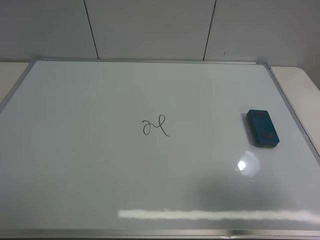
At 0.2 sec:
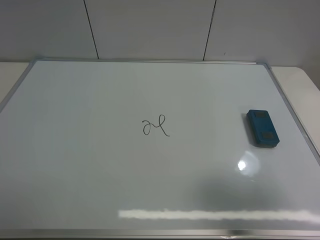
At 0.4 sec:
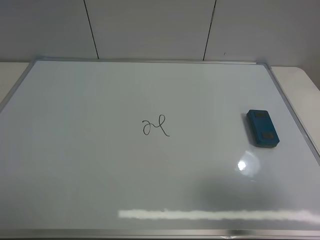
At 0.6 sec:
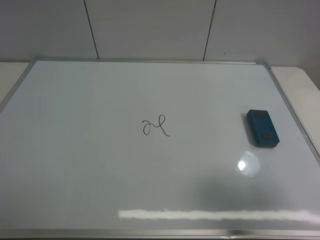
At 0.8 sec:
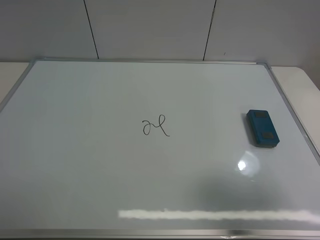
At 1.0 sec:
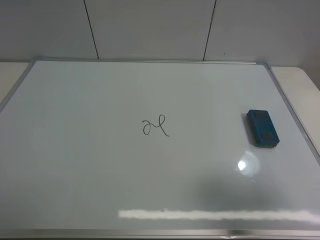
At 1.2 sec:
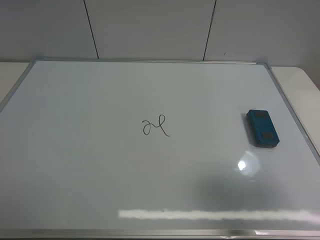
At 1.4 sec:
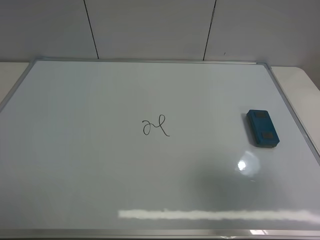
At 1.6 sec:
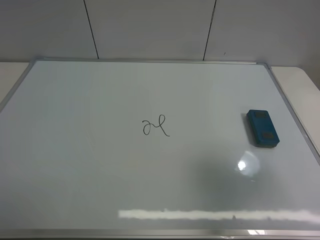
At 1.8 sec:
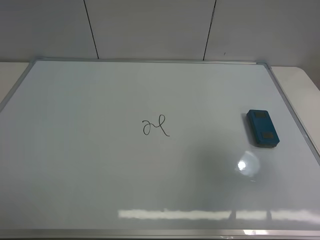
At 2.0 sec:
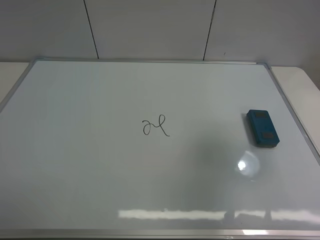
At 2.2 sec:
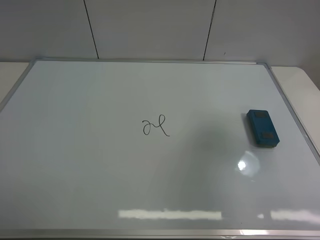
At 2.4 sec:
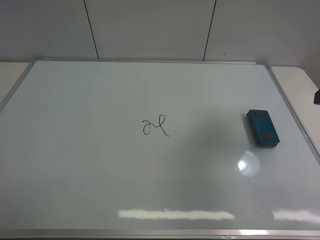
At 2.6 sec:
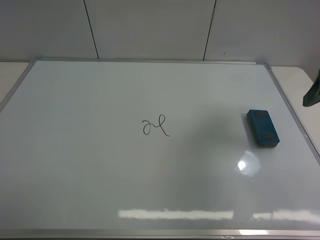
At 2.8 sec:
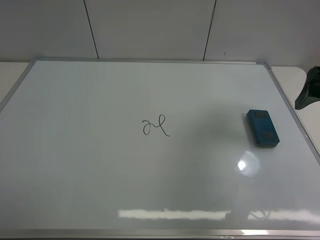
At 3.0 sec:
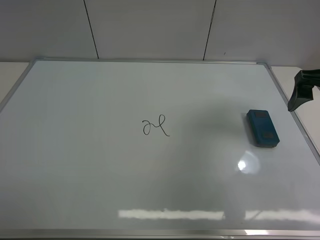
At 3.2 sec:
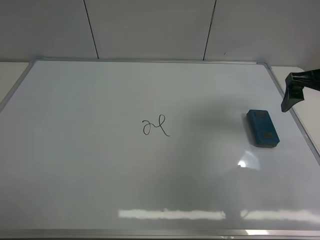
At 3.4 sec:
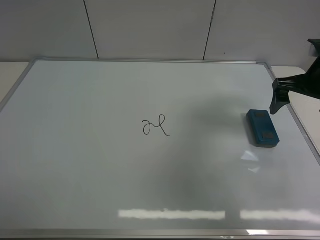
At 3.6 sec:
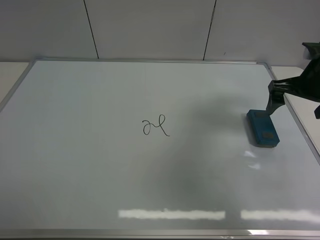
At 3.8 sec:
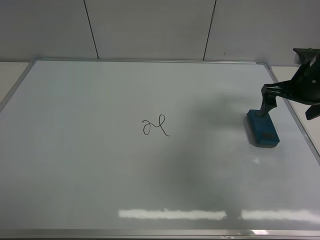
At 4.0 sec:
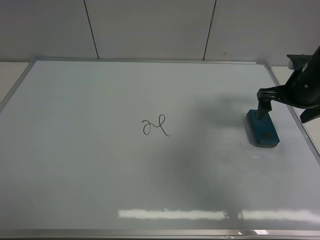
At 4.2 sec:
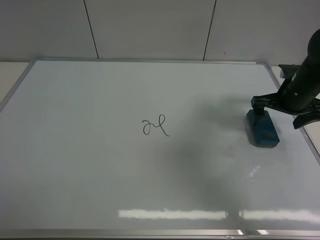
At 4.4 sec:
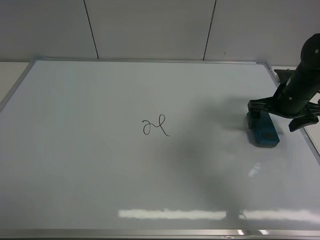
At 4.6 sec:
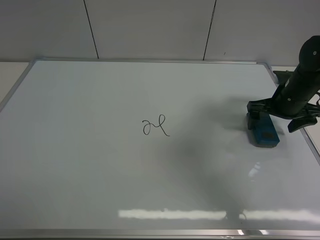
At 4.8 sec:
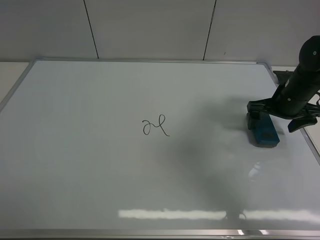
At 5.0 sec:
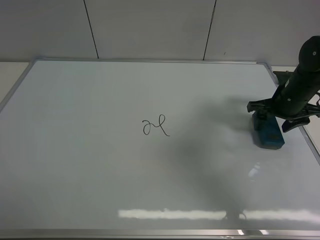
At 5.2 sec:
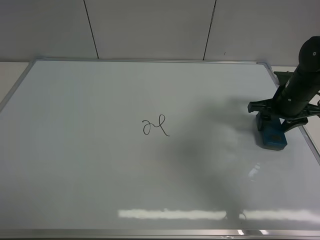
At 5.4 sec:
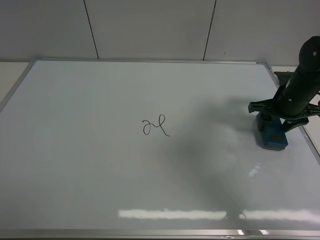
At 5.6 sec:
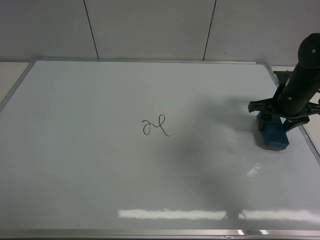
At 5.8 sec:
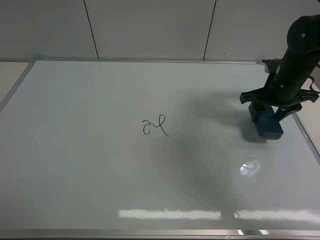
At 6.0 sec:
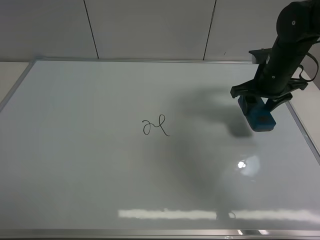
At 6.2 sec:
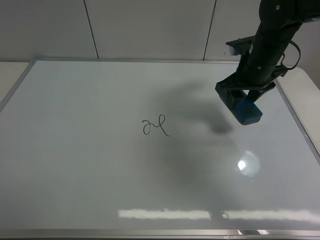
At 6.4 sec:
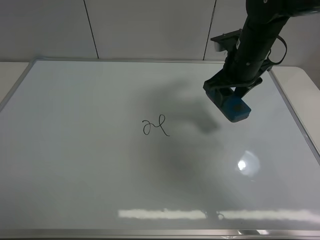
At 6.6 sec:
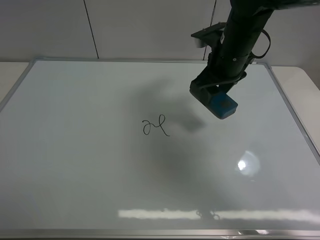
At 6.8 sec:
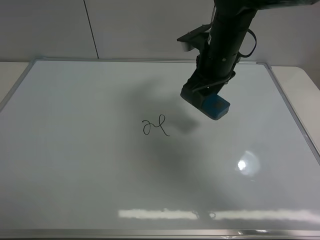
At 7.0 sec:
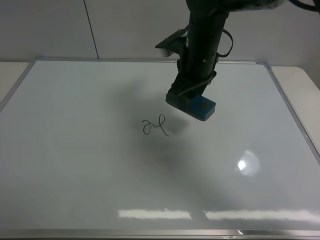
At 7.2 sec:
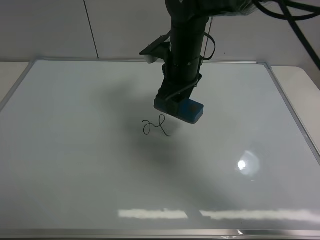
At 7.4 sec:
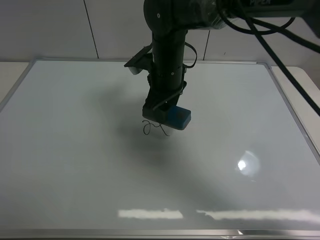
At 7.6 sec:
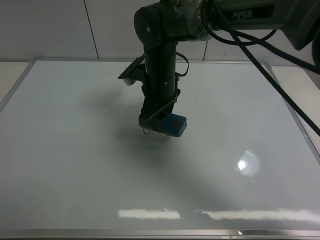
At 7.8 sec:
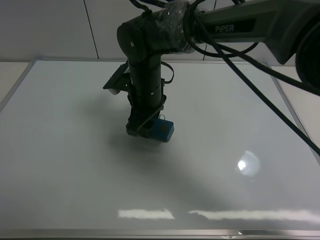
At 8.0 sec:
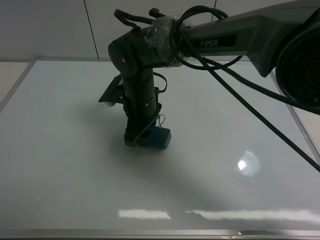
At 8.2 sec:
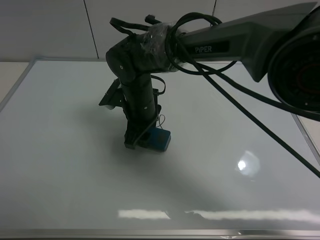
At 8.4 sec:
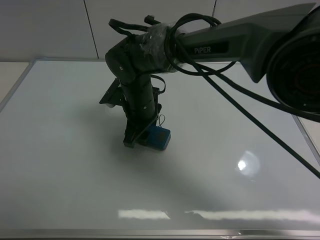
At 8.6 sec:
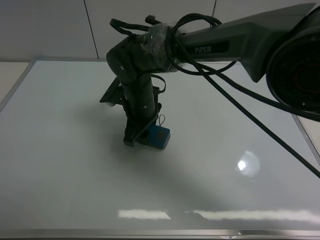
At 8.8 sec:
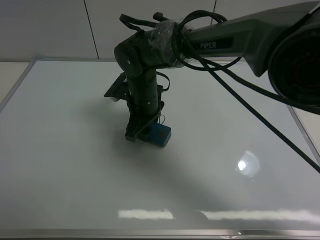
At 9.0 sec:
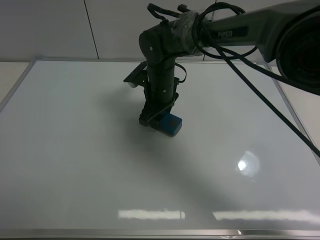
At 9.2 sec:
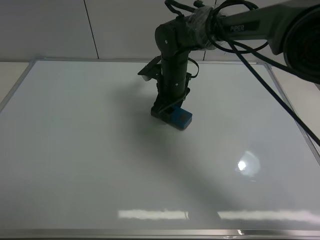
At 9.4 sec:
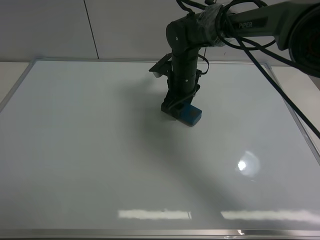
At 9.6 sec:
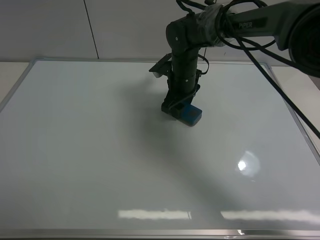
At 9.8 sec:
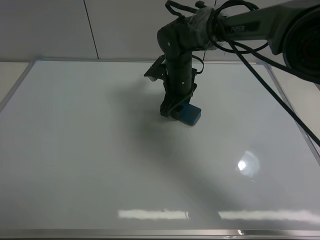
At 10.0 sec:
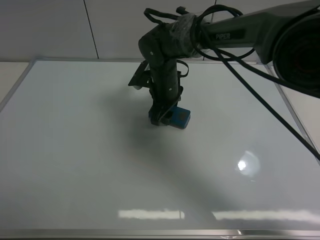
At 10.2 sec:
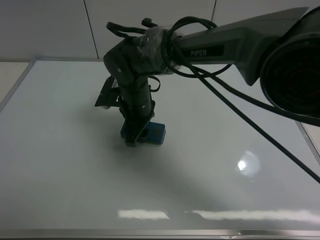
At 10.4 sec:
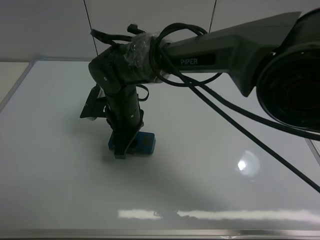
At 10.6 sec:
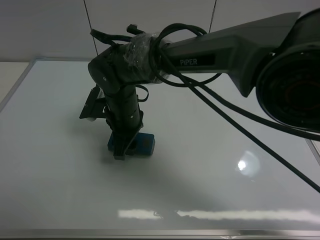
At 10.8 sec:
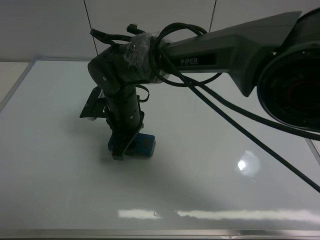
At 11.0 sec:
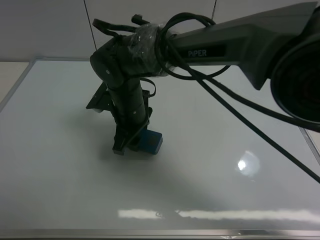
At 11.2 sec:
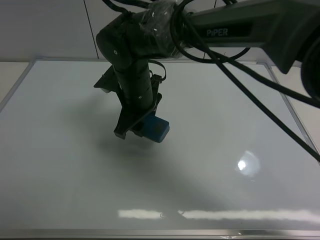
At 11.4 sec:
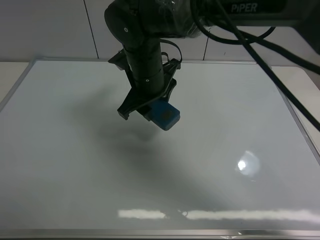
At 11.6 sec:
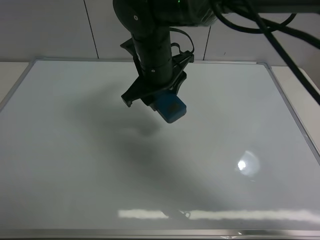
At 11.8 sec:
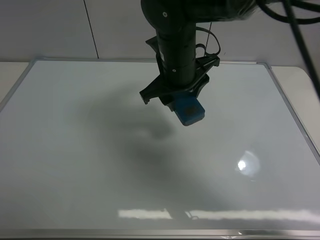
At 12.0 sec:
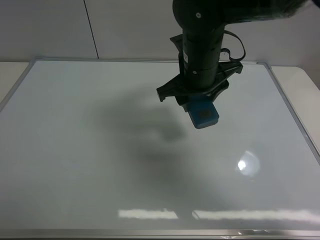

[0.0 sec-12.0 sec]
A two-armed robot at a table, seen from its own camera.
Task of the whole recording: use the right gripper to pick up the board eraser, wipe the notes on the whiteboard clean, and then put them back in place.
Step, 0.0 sec to 5.8 sec: Pick up the board eraser with right gripper.
Step, 6.0 sec to 10.8 sec: Wipe off the writing on the board with right gripper.
0.0 sec to 1.6 sec: The right gripper travels forward by some 5 cm.
1.6 sec to 3.0 sec: The right gripper heads forward, covering some 20 cm.
3.0 sec to 4.4 sec: The right gripper travels downward and forward by about 15 cm.
4.4 sec to 6.0 sec: The right gripper travels to the left by approximately 5 cm, and closes its fingers.
6.0 sec to 7.6 sec: The right gripper travels to the left by roughly 25 cm.
7.6 sec to 9.0 sec: The right gripper shifts by some 5 cm.
9.0 sec to 10.4 sec: The right gripper shifts about 10 cm backward and to the left.
10.4 sec to 12.0 sec: The right gripper moves to the right and upward, roughly 20 cm.

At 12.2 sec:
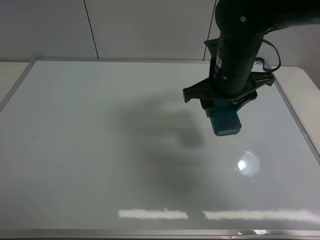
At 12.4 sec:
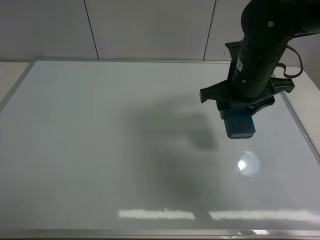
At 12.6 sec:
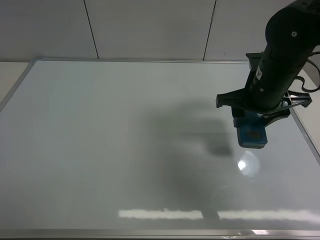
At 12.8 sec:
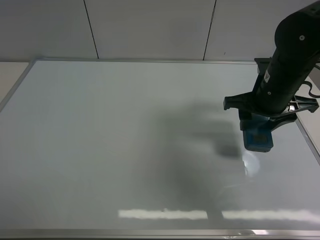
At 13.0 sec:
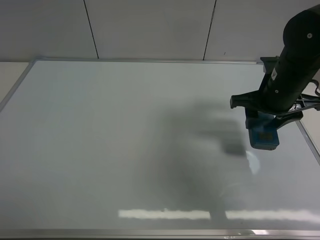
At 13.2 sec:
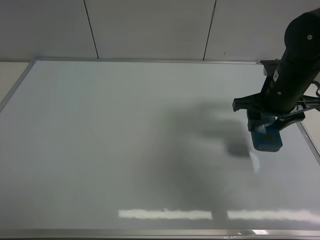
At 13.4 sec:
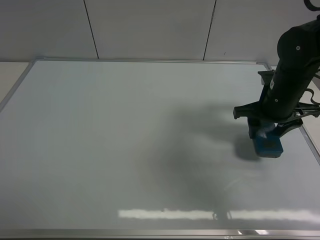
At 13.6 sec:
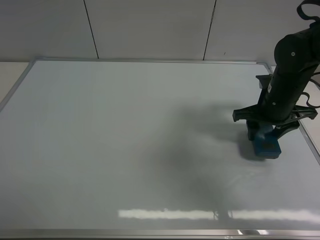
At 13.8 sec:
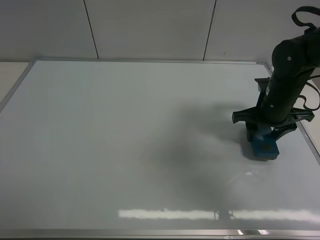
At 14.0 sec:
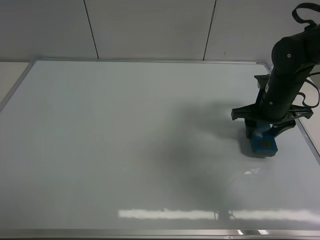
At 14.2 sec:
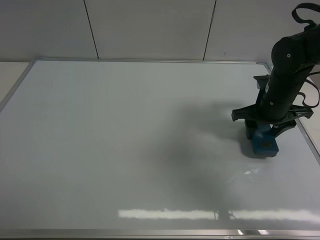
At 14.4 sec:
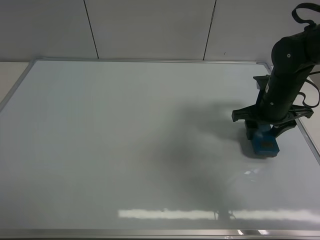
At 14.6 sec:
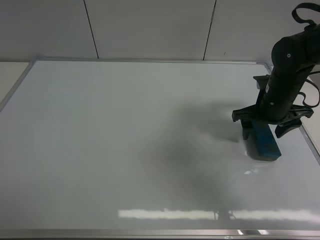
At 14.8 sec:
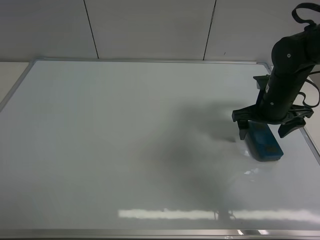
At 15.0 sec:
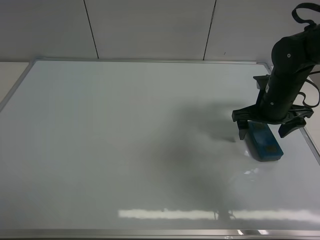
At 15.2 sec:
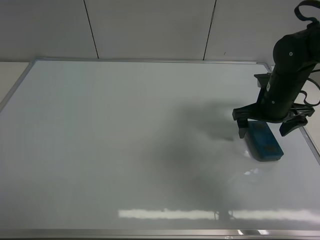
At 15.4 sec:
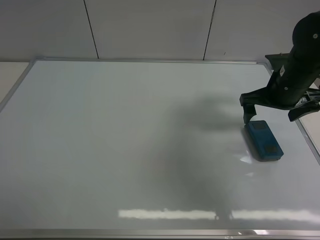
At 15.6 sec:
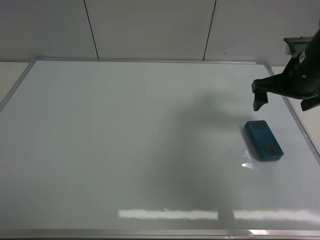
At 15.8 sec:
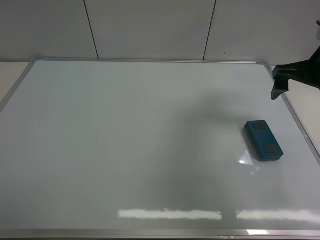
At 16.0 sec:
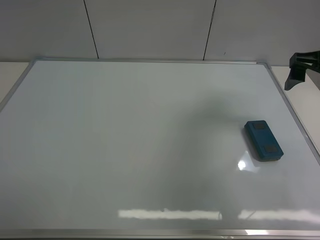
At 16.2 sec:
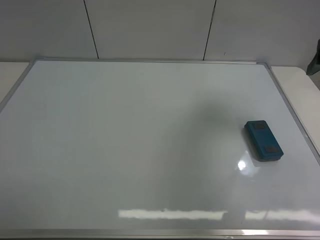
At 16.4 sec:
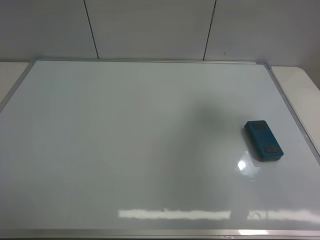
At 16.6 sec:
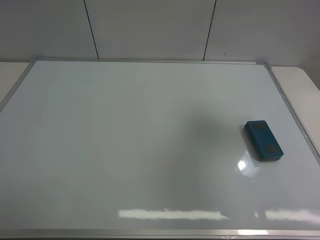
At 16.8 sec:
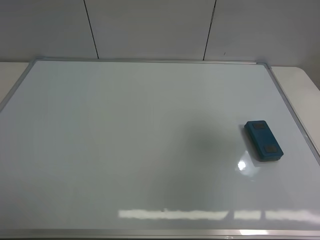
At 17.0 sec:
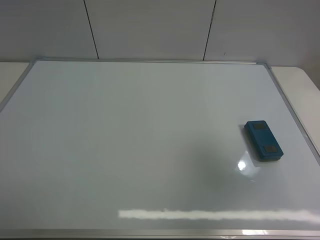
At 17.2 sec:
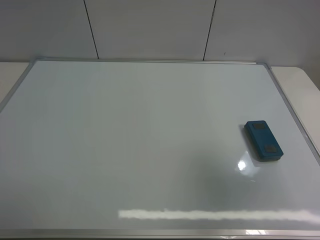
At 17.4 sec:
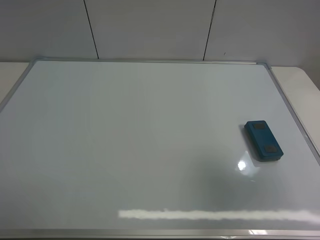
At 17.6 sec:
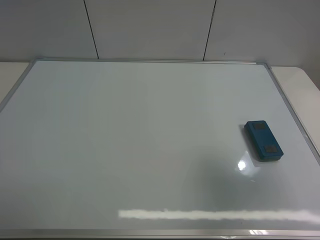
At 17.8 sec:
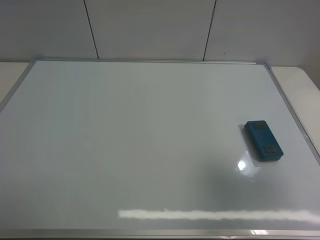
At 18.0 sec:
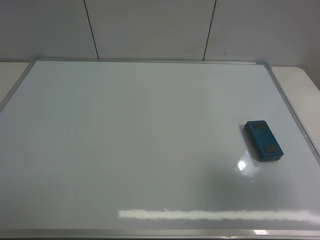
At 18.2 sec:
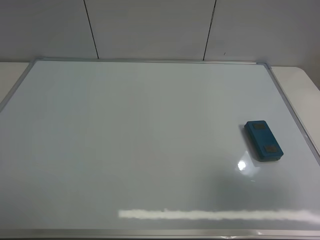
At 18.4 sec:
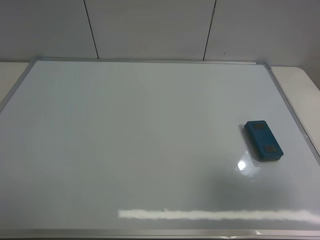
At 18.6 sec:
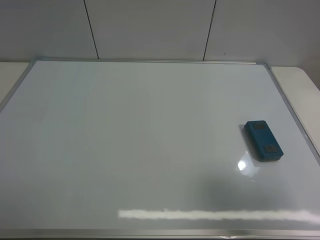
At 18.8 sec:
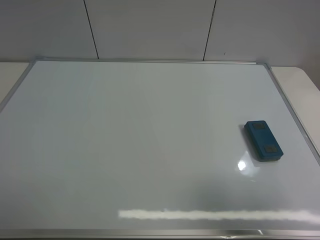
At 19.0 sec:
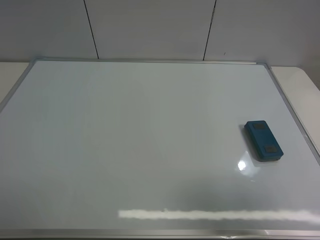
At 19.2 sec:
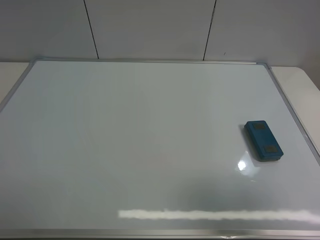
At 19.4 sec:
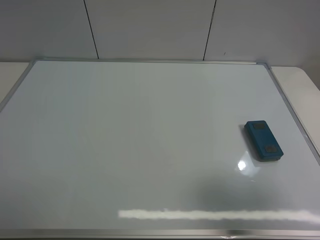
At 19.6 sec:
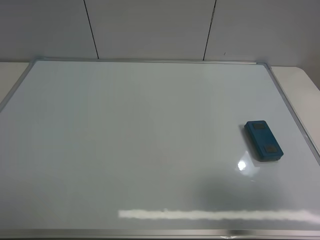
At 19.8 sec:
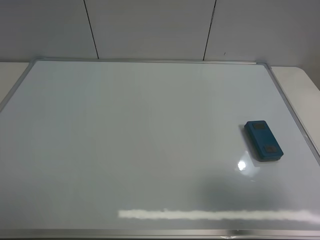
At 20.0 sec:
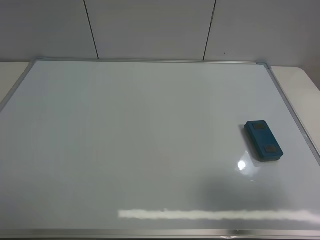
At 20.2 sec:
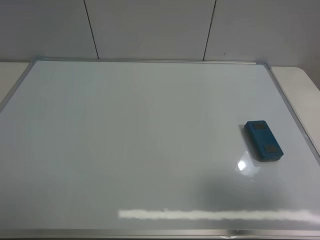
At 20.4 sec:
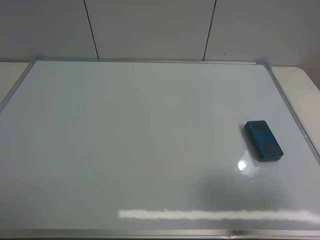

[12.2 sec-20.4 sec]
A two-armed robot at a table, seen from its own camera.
Task of the whole recording: use the right gripper to pick up the board eraser, wipe the notes on the whiteboard clean, and then put them back in place.
Step, 12.2 sec to 14.8 sec: Move the board eraser to the right of the whiteboard with right gripper.
12.2 sec to 13.8 sec: The right gripper heads to the right and downward, covering about 15 cm.
13.8 sec to 15.4 sec: The right gripper moves upward, about 5 cm, and opens.
15.4 sec to 17.2 sec: The right gripper shifts roughly 35 cm backward and upward.
17.2 sec to 18.8 sec: The right gripper heads backward, covering some 5 cm.
